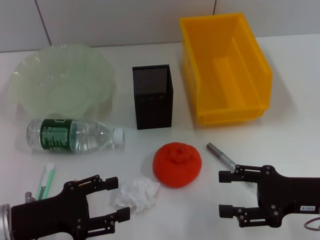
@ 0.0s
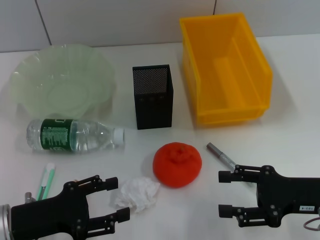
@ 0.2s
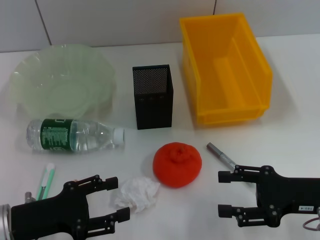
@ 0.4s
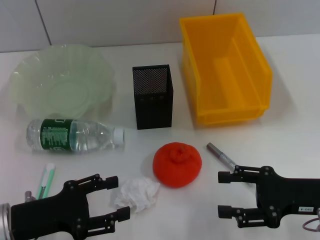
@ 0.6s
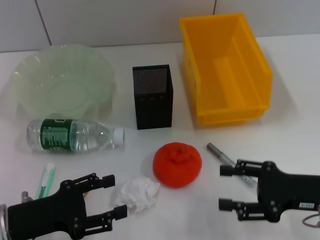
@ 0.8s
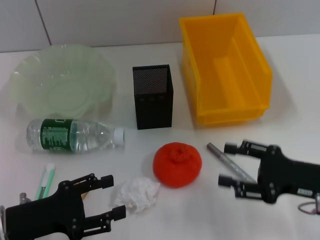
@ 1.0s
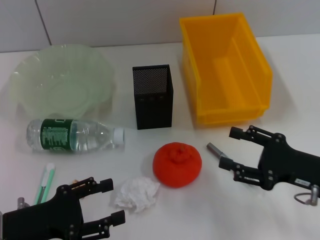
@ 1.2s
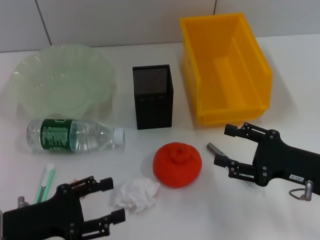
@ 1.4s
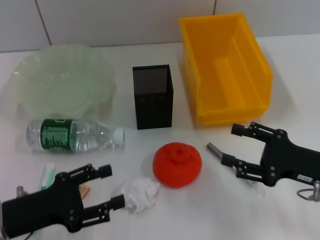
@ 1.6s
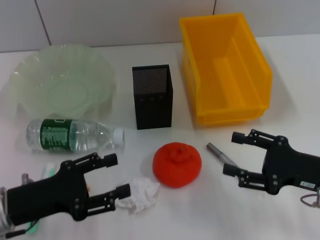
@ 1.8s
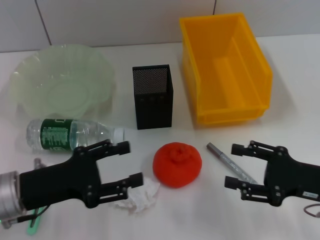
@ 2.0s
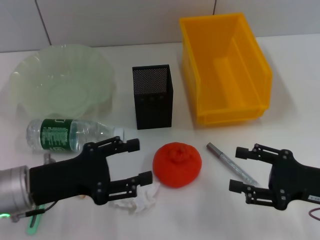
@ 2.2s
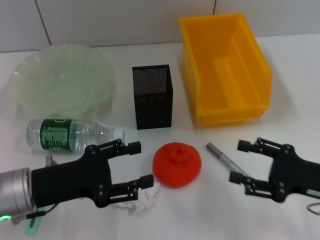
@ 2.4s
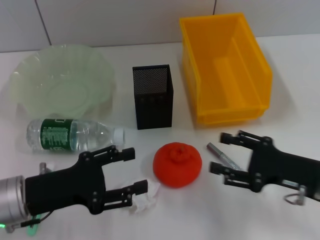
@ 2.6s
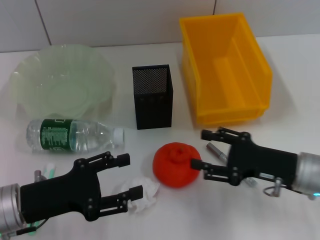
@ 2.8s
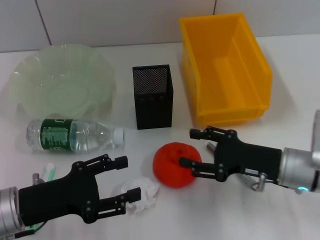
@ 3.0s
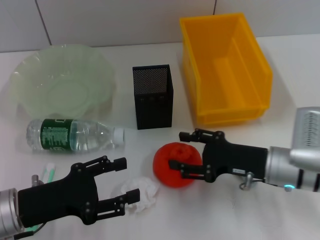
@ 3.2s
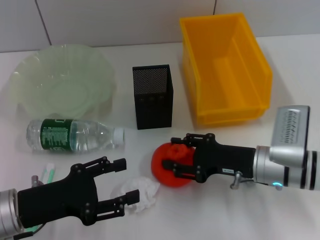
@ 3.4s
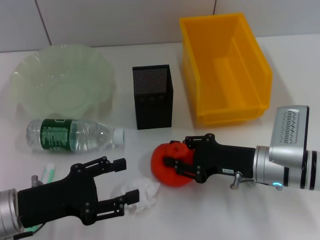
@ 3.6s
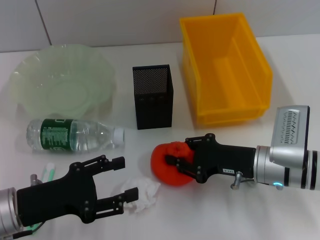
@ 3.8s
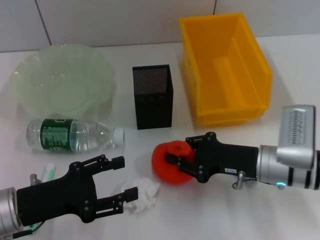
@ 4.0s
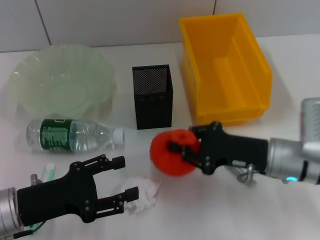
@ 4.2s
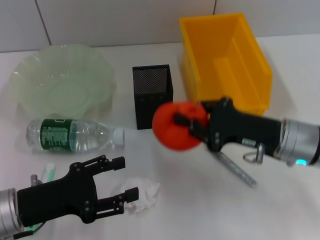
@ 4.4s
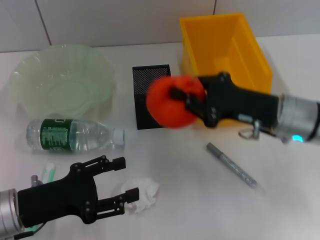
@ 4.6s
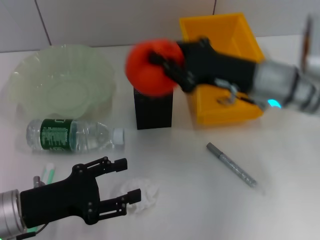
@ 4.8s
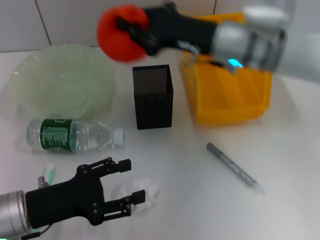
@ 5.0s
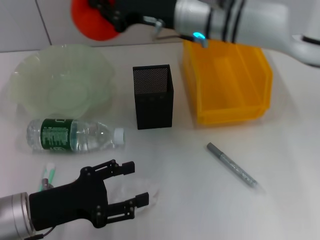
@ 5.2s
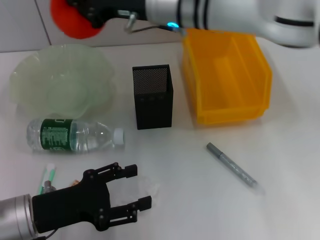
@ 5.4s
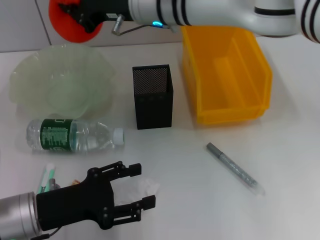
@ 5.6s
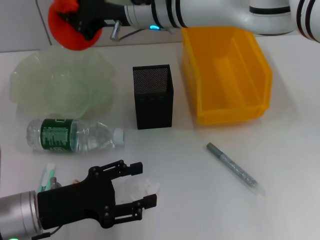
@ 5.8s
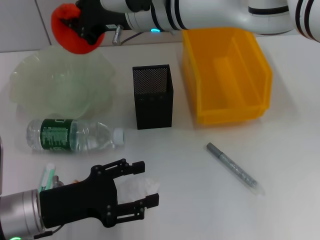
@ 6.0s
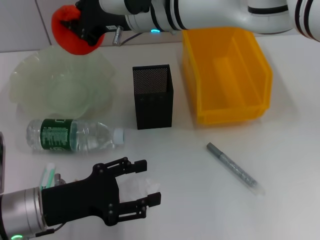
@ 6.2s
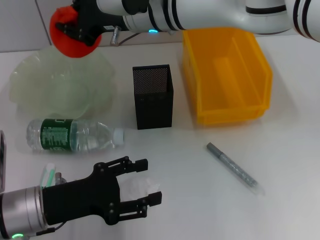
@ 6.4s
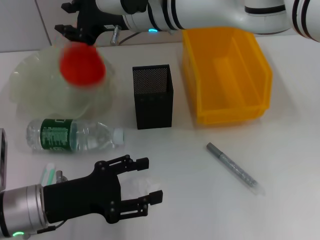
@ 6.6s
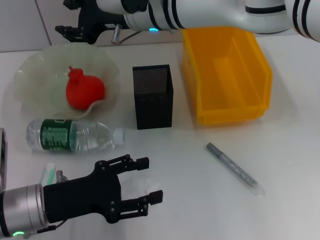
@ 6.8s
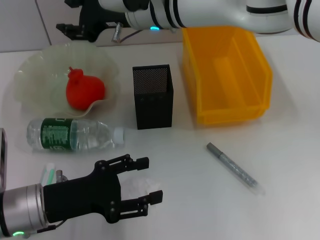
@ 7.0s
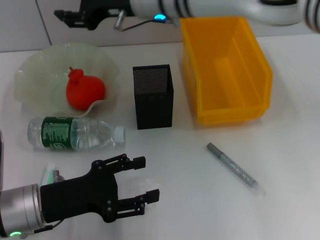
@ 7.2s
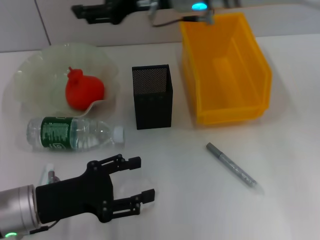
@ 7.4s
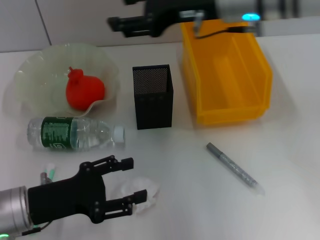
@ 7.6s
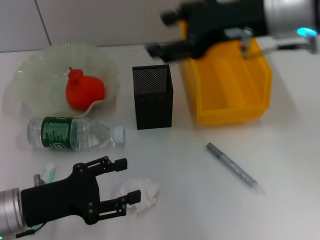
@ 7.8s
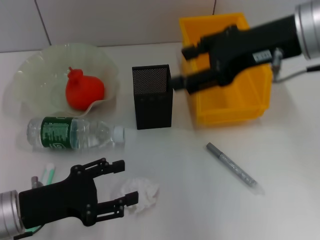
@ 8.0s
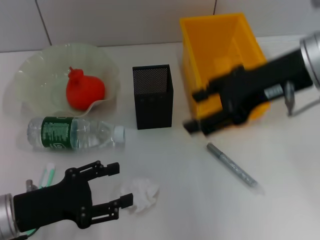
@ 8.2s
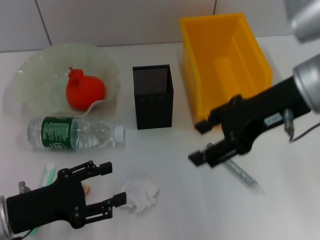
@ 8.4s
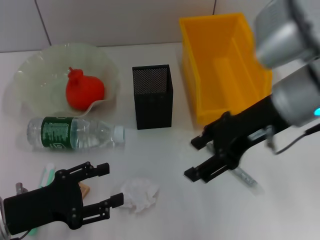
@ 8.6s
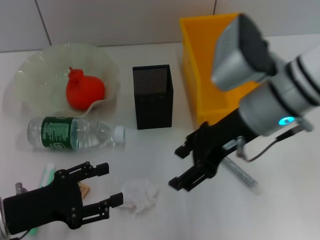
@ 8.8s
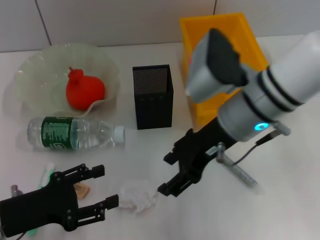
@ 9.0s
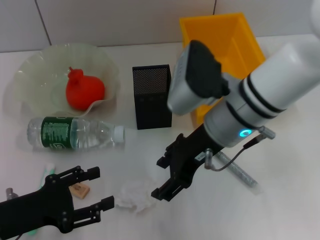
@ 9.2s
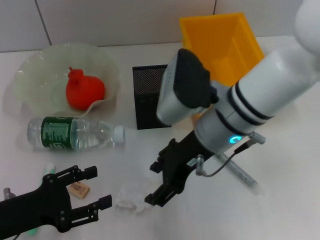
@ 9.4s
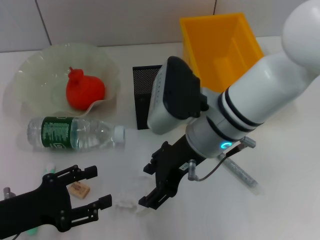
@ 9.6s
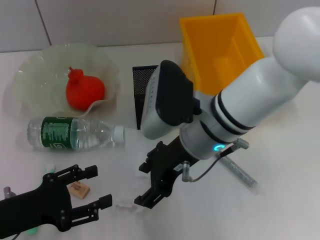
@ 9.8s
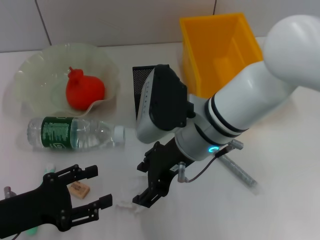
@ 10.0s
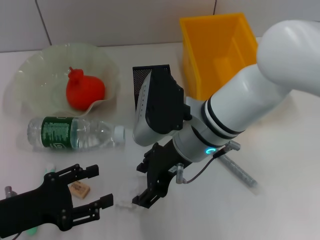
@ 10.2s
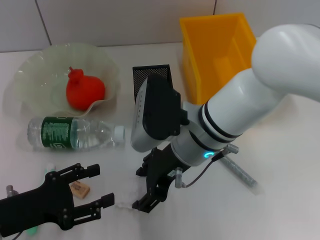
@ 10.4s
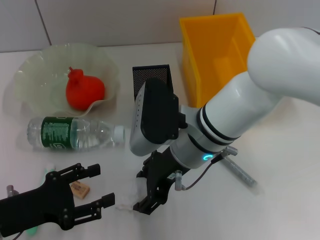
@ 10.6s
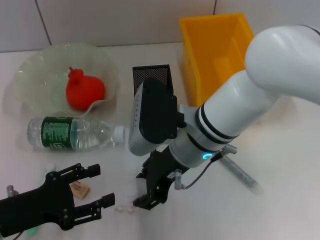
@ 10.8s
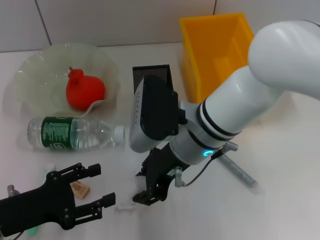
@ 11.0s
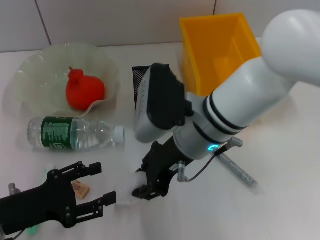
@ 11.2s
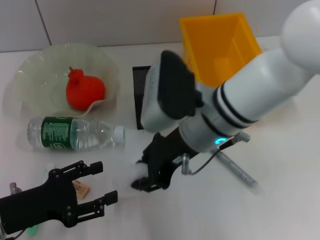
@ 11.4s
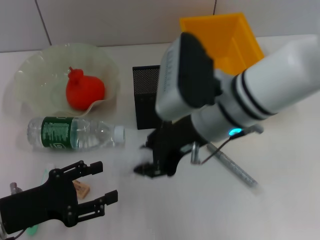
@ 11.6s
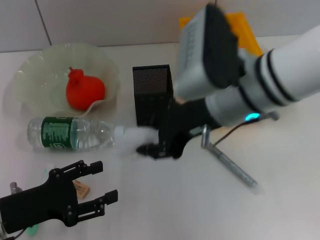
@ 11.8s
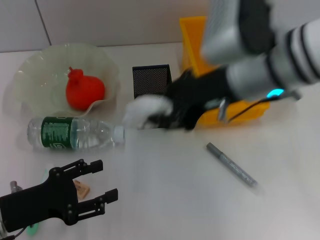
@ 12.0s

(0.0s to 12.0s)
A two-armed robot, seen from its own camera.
Step, 0.0s - 4.0s: Grab the orange with the right hand.
Step, 4.2s - 6.8s: Place the orange into the fruit bowl with the right hand.
Step, 7.0s - 11.0s: Grab the paper ball with the right hand.
1.6s - 3.0s: The right gripper goes some 5 cm to the left.
3.0s - 4.4s: The right gripper closes.
4.4s - 6.0s: The right gripper shifts approximately 30 cm to the left, forward and upward.
6.0s - 7.6s: The right gripper shifts some 15 cm to the right, backward and upward, and opens its fingers.
7.6s - 9.0s: The right gripper travels downward and backward by approximately 10 cm.
9.0s - 10.4s: The right gripper moves to the left, roughly 5 cm.
10.4s - 12.0s: The right gripper goes some 10 cm upward and to the right, and closes up.

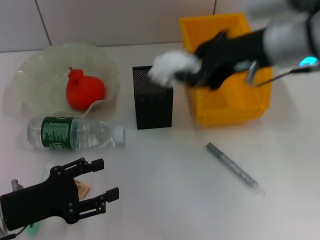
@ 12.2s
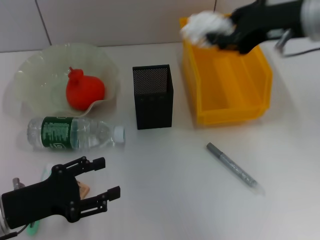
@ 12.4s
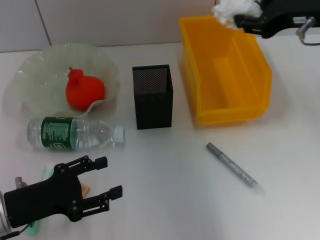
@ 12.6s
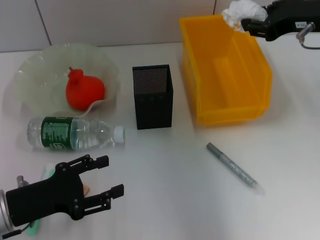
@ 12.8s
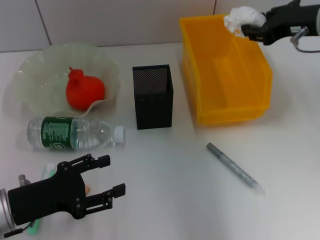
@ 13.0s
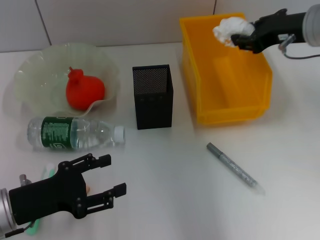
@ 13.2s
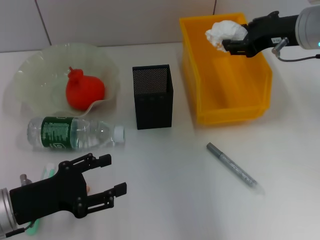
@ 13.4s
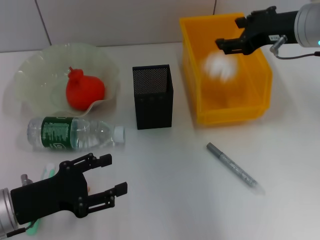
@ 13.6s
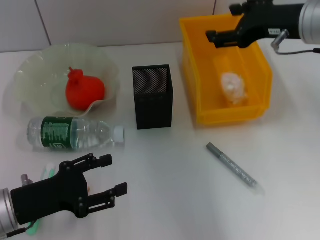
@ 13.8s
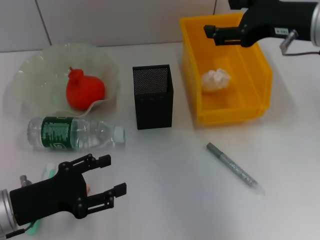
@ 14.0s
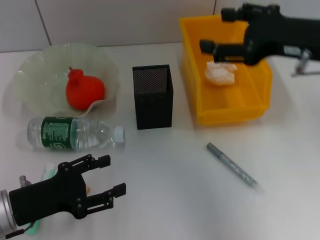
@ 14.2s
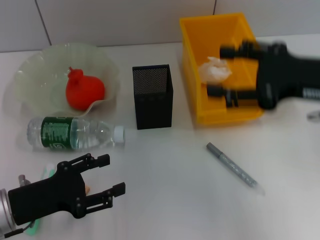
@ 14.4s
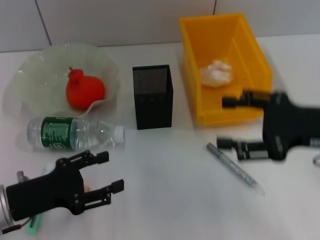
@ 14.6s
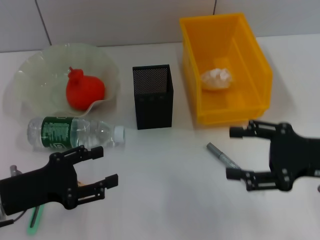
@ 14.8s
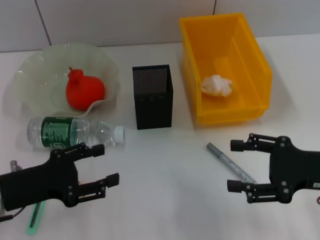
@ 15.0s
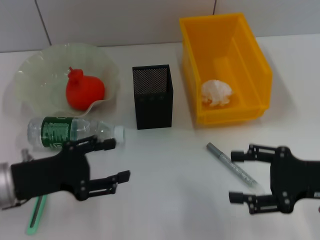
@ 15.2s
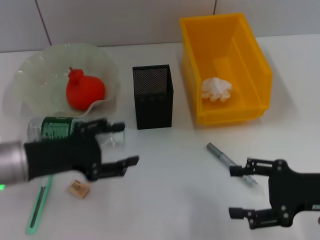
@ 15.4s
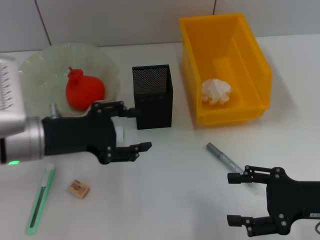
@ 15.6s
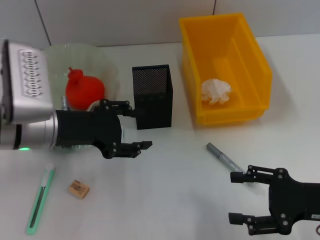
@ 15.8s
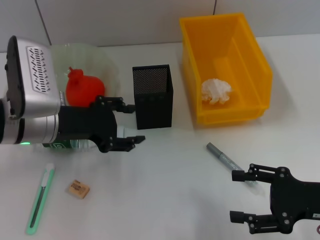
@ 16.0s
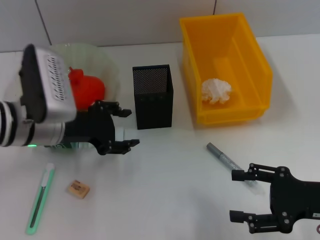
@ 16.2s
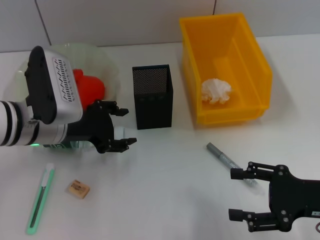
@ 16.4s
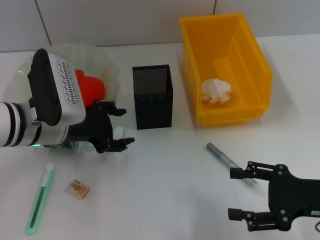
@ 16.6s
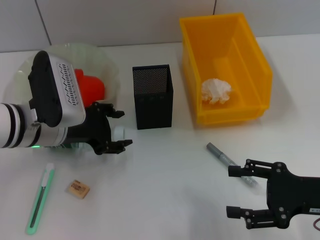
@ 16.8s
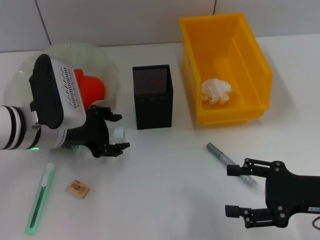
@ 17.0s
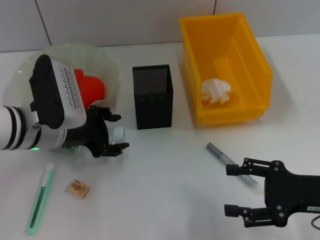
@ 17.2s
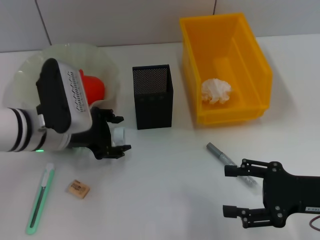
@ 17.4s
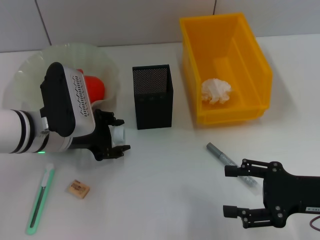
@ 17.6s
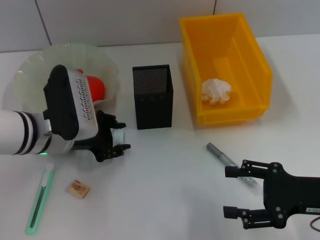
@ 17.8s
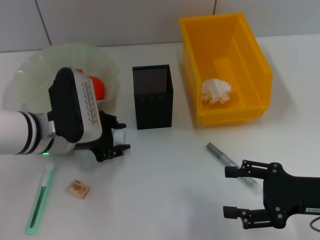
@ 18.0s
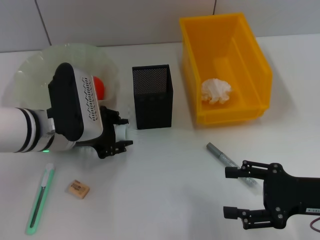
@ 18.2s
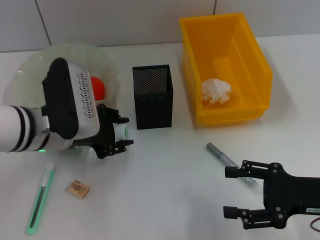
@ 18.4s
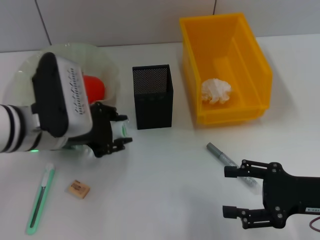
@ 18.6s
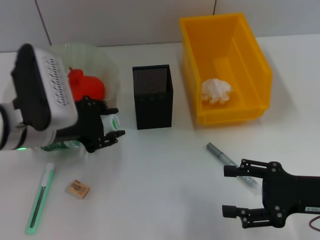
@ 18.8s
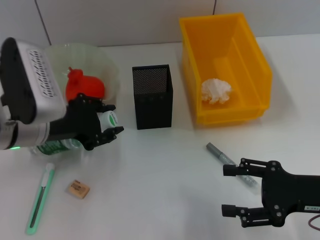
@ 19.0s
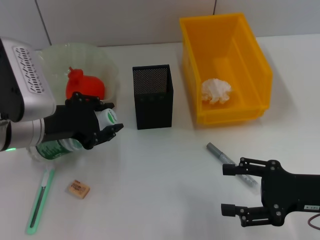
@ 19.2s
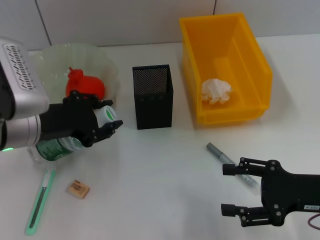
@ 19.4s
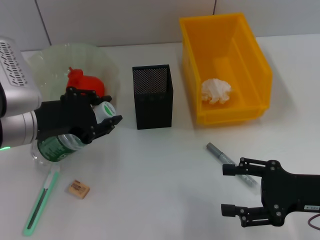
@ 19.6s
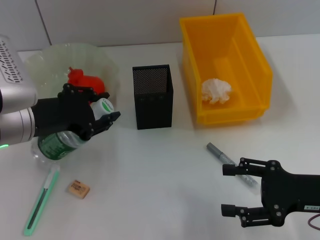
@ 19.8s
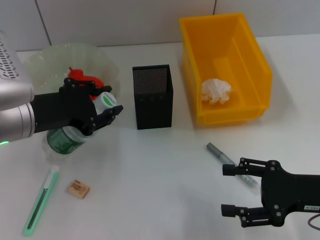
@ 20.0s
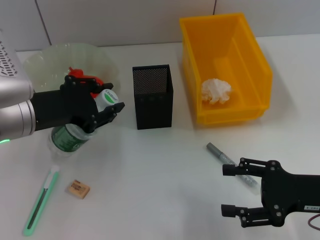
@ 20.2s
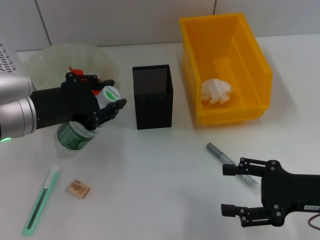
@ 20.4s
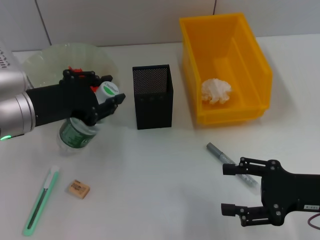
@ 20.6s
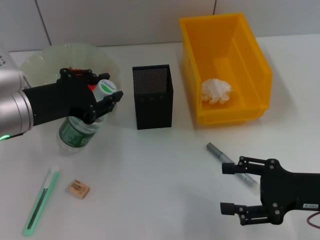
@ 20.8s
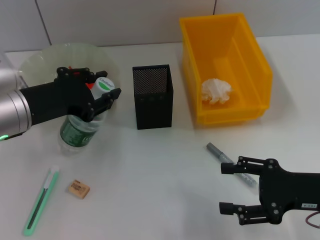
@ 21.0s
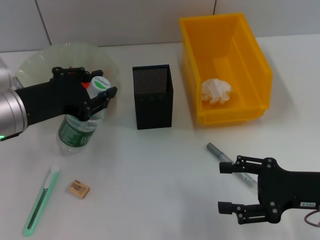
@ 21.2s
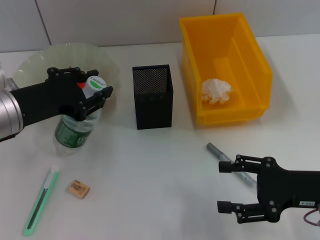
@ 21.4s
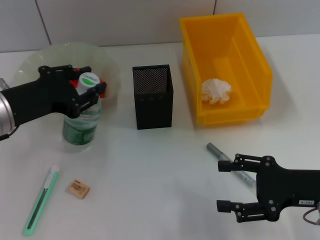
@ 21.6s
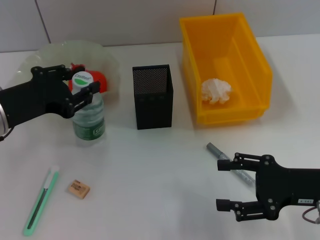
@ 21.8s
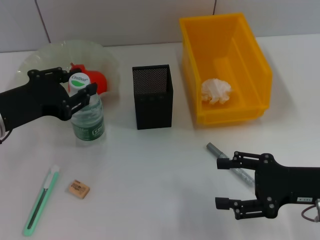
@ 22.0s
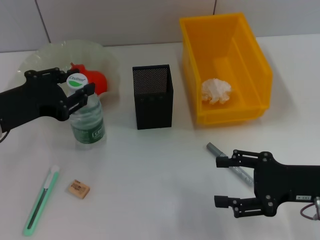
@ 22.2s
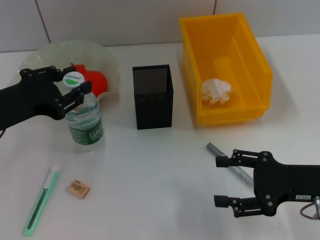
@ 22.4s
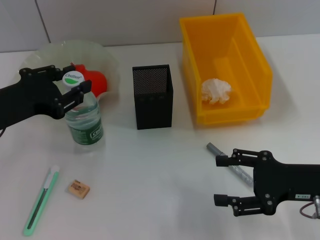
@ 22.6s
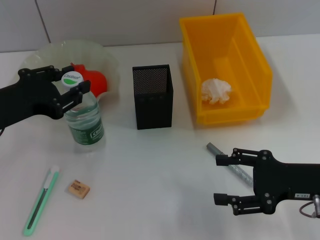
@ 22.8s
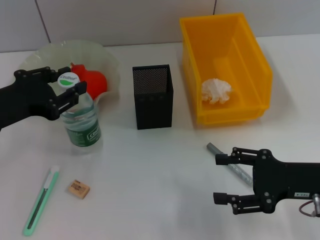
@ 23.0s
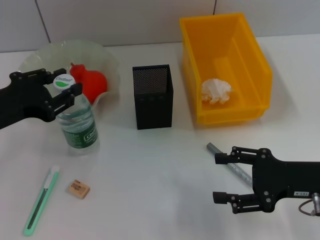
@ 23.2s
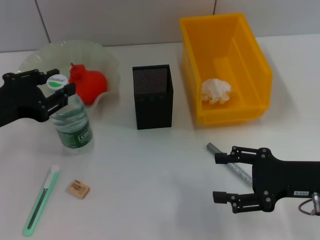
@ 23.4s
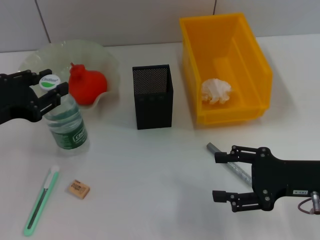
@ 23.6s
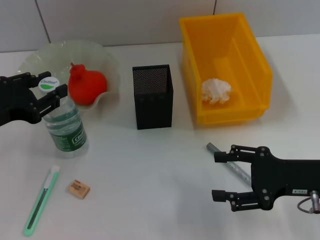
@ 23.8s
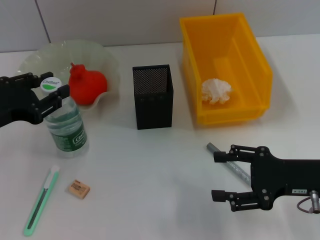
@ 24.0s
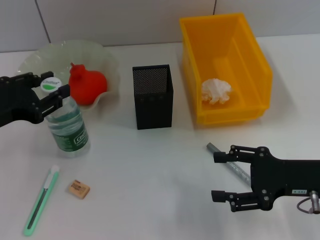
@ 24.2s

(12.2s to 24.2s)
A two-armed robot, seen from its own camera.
Step, 12.2s - 13.6s: Place the paper ball into the trash can with the right hand.
Step, 13.8s - 18.0s: Grab the water bottle with the left hand.
Step, 18.2s - 24.0s: Place the water bottle on the table with the left hand.
12.2s - 13.8s: The right gripper heads to the right, covering about 5 cm, and opens.
13.8s - 15.2s: The right gripper heads backward, downward and to the right, covering roughly 20 cm.
15.2s - 16.6s: The left gripper is displaced forward and to the right by approximately 10 cm.
16.6s - 18.2s: The grippers move only a little.
18.2s - 19.8s: The left gripper moves about 5 cm.
19.8s - 21.2s: There are only small adjustments of the grippers.
21.2s - 22.6s: The grippers make only small movements.
22.6s - 24.2s: The grippers make only small movements.
